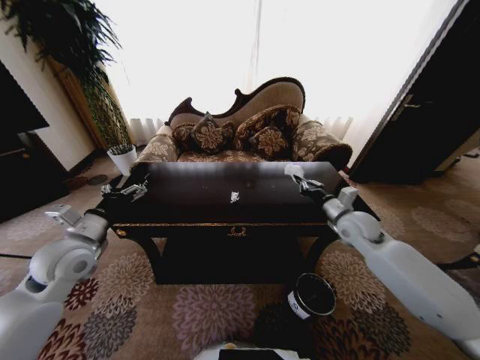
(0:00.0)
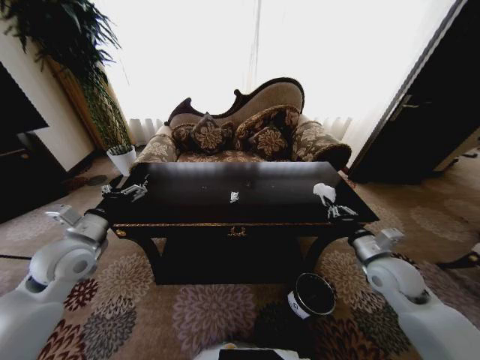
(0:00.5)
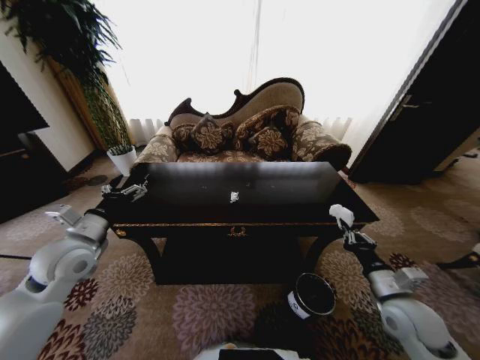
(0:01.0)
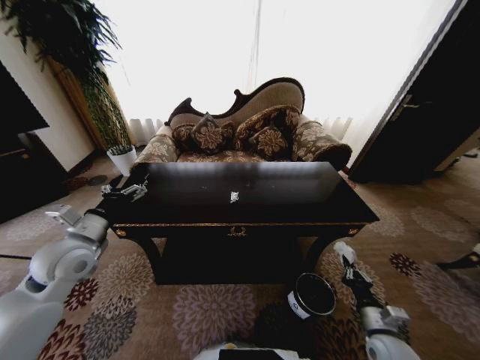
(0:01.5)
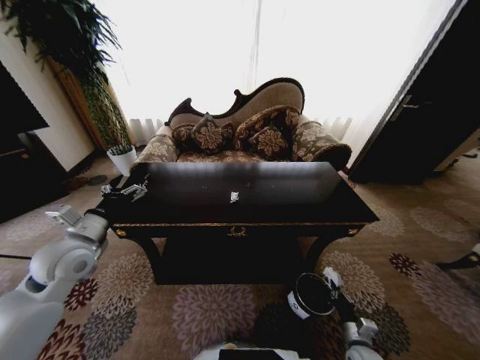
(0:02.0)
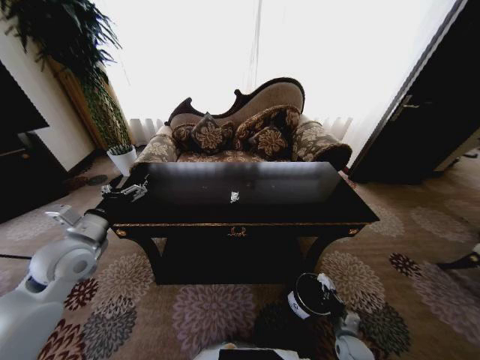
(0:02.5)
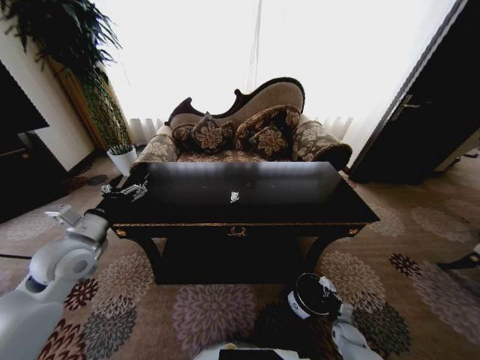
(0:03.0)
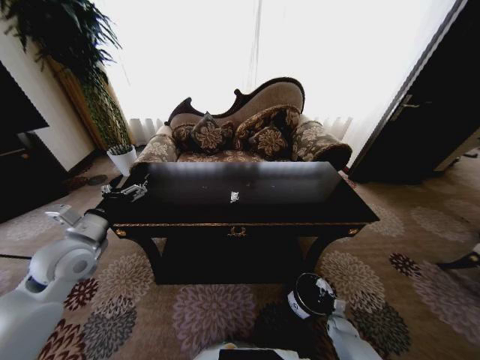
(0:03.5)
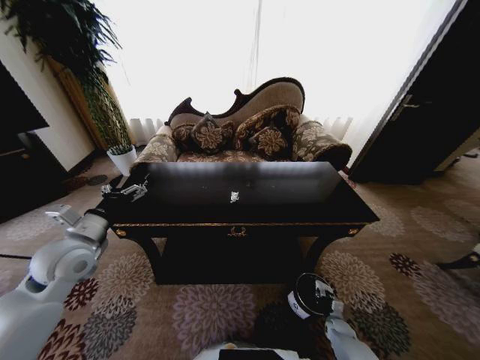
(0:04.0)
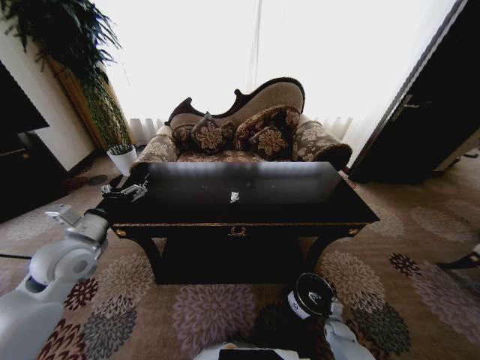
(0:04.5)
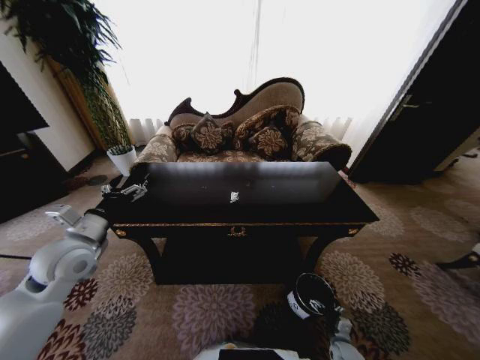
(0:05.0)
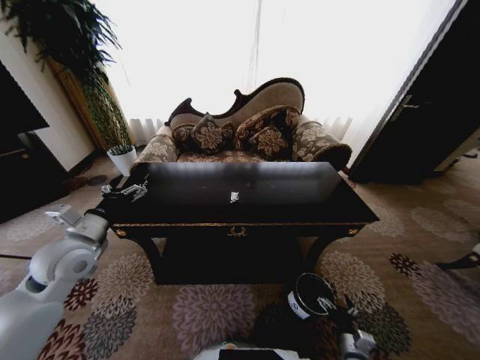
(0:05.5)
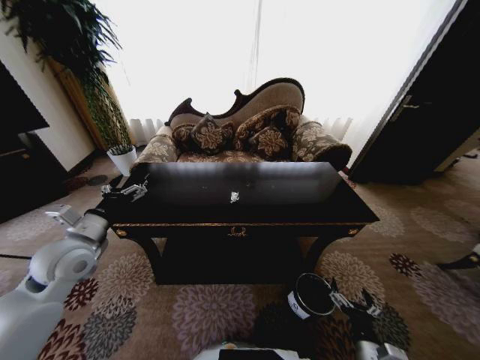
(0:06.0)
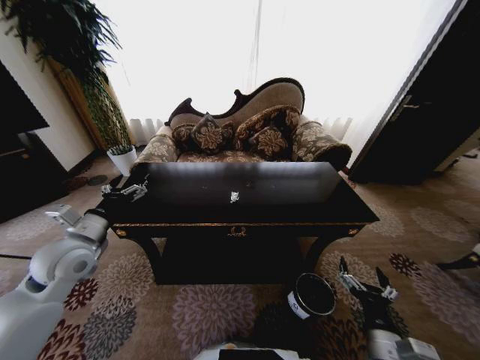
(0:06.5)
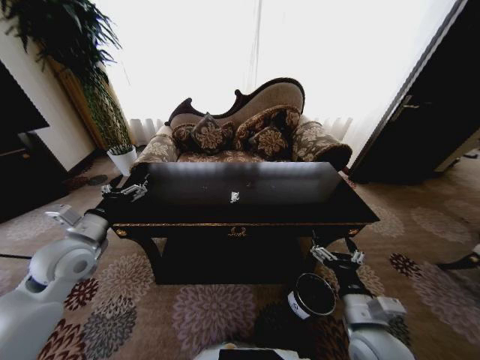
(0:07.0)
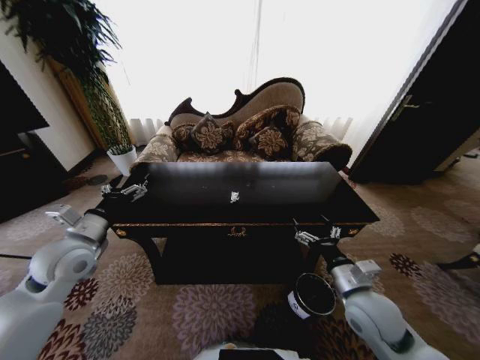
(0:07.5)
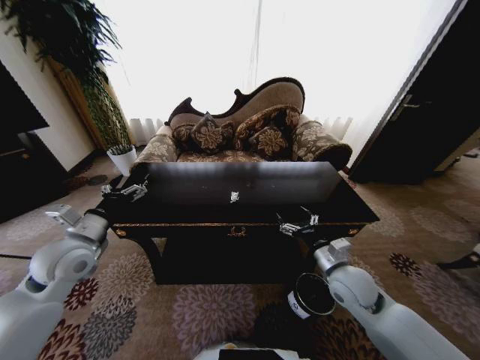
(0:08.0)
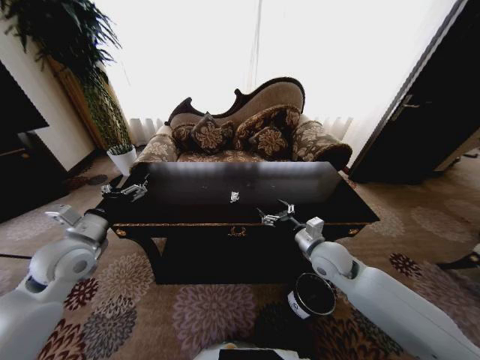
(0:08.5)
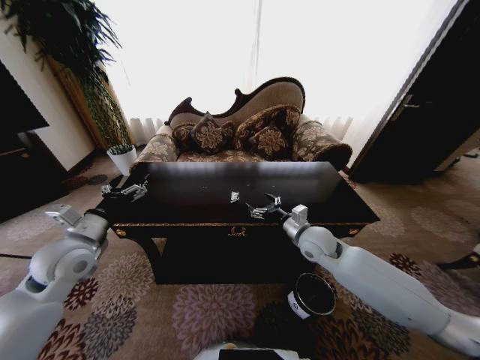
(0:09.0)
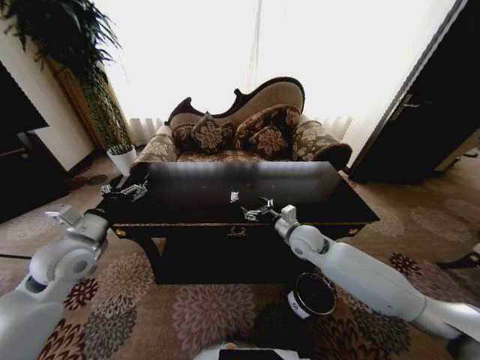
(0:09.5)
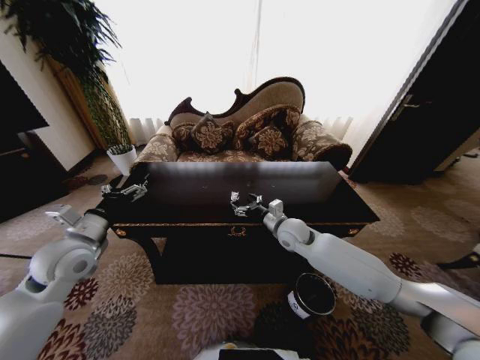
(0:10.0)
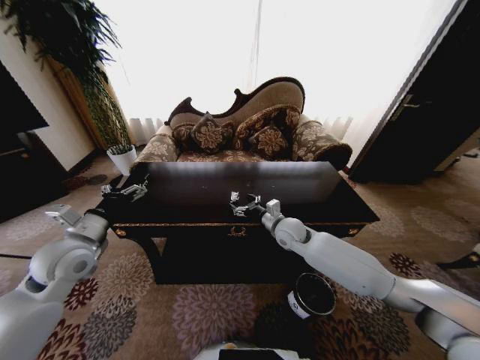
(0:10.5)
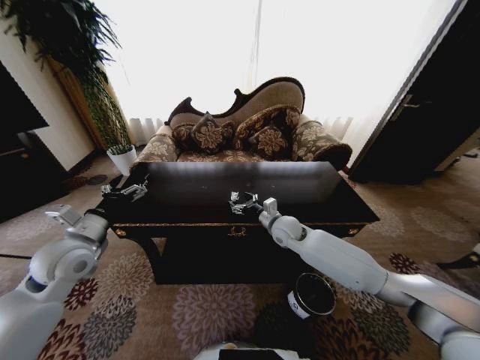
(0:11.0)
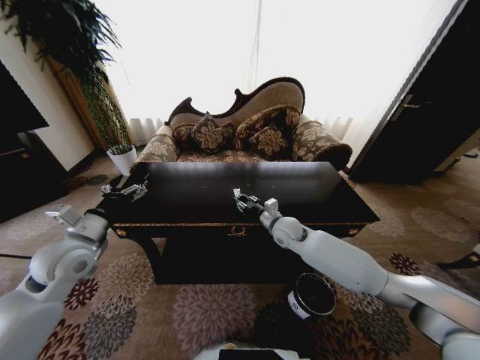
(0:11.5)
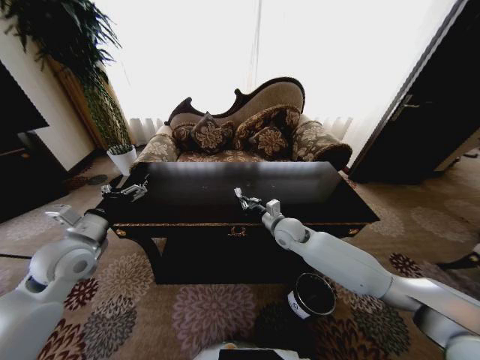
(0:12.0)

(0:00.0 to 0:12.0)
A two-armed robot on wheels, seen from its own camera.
Task of the whole recording: Move to the front of the table and place the trash on the table into the trash bin.
0:00.0 - 0:02.0: The right gripper goes roughly 40 cm downward and backward.
0:02.0 - 0:04.0: The right gripper travels downward and forward by some 20 cm.
0:04.0 - 0:06.0: The right gripper shifts some 30 cm upward, backward and to the left, and opens its fingers.
0:06.0 - 0:08.0: The right gripper goes about 25 cm forward and upward.
0:08.0 - 0:10.0: The right gripper is displaced forward and to the left by roughly 20 cm.
0:10.0 - 0:12.0: The right gripper closes up.

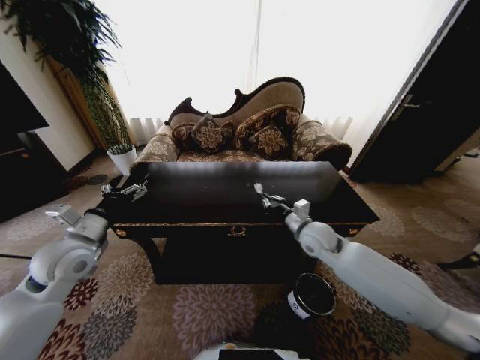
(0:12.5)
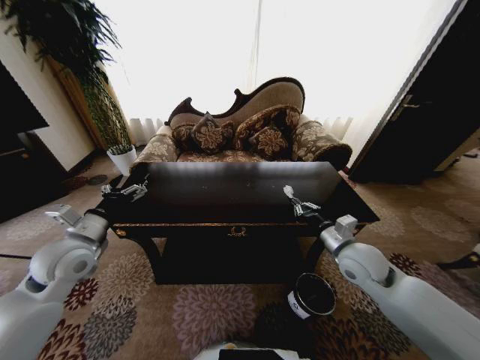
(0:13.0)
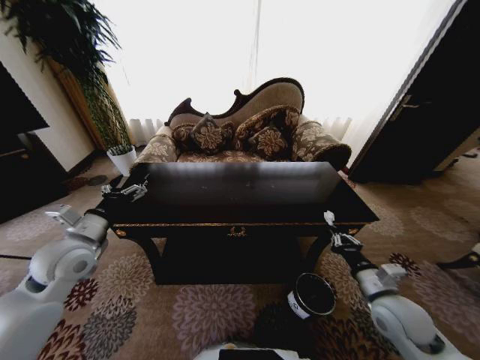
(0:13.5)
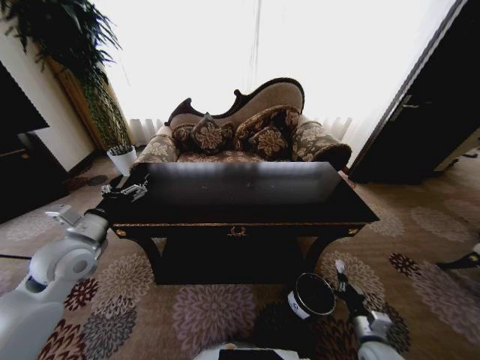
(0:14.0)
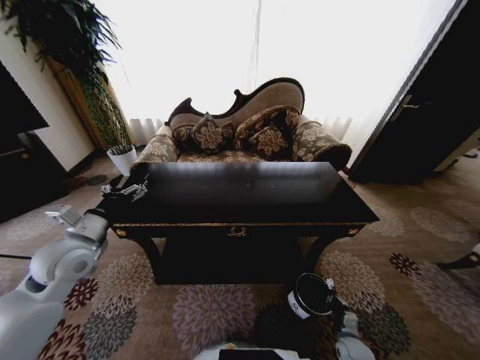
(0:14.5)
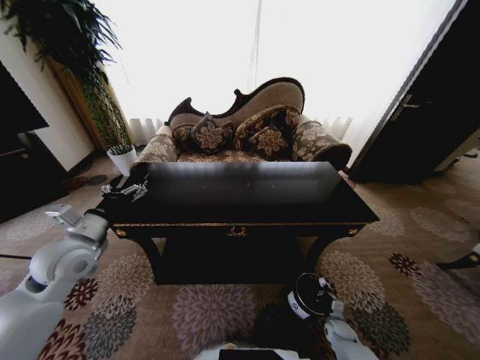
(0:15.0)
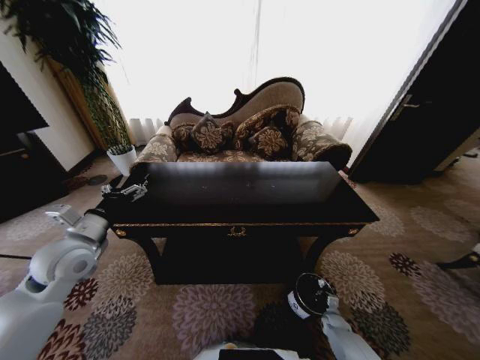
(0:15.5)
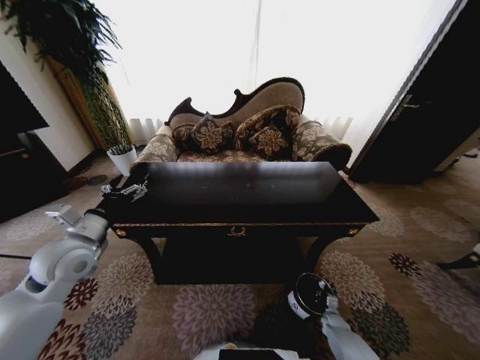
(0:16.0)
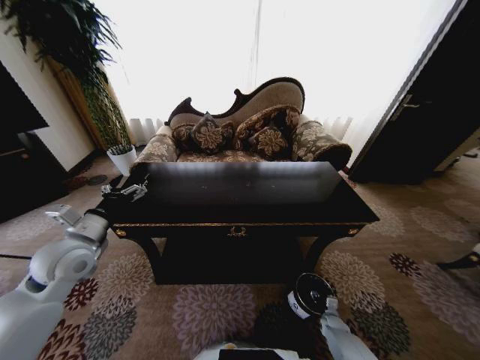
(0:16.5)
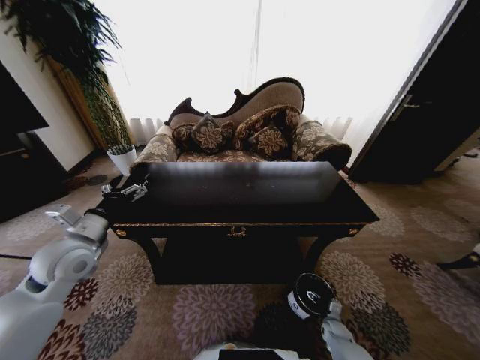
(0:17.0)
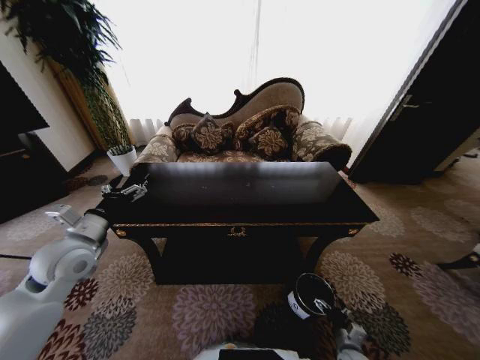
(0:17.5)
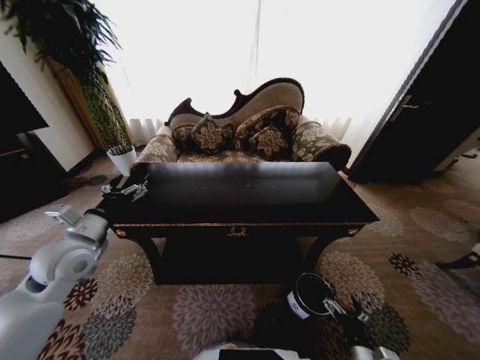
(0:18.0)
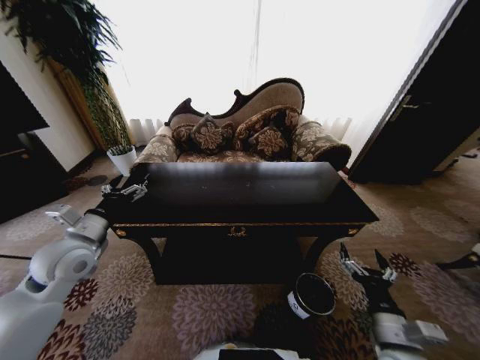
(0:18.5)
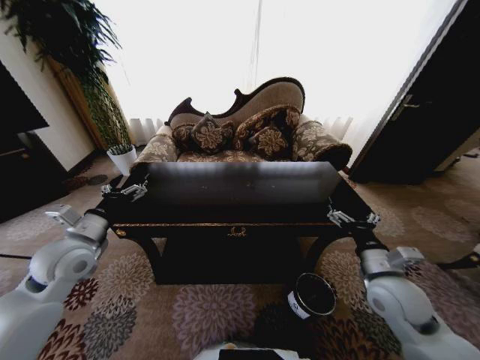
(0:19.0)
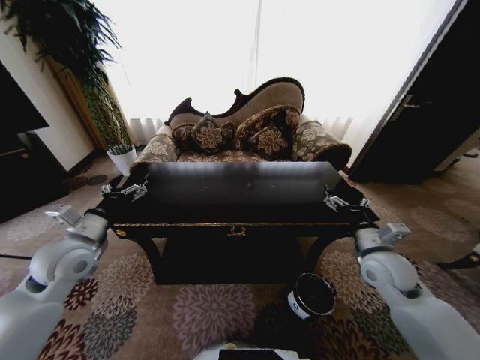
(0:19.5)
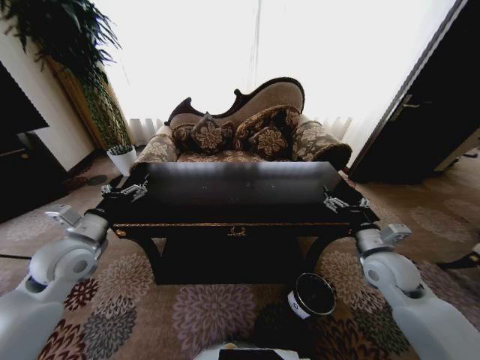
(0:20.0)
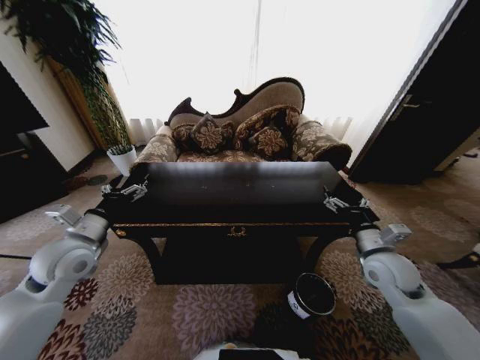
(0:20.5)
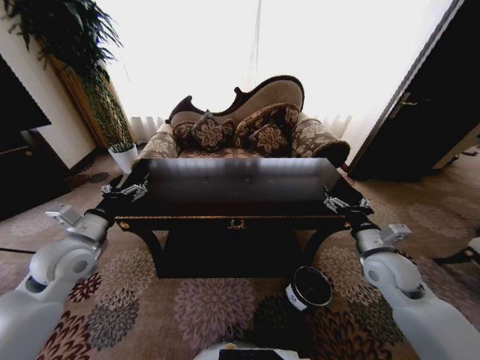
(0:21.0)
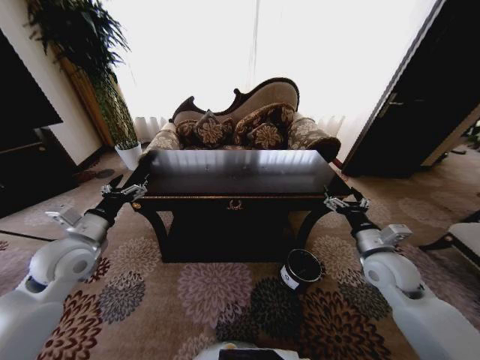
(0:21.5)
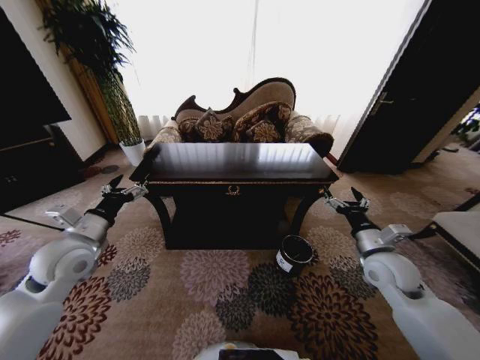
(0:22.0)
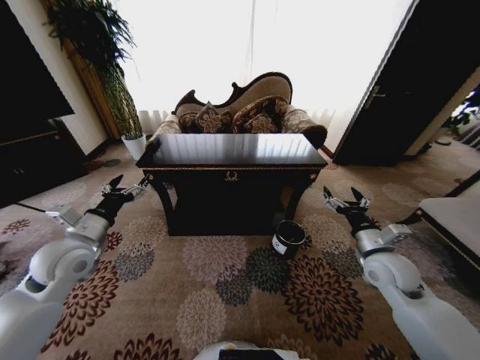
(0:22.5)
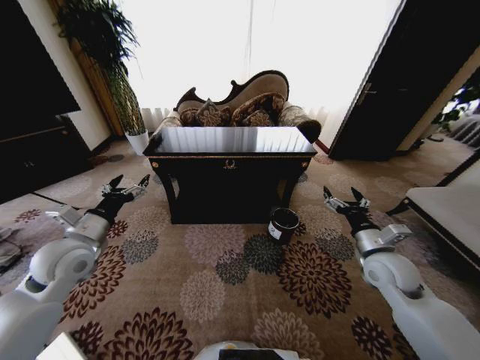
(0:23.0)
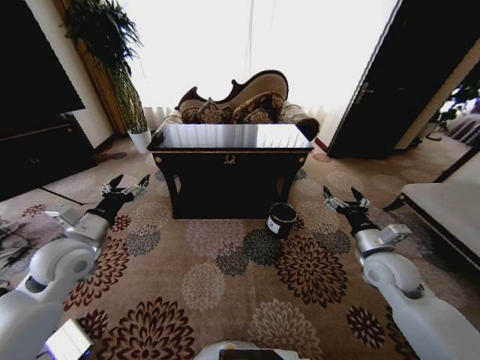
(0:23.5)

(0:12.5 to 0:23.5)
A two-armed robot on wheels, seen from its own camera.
Task of the whole recording: Move to the front of the table and place the trash on the table into the trash bin.
0:12.5 - 0:14.5: The right gripper goes roughly 40 cm downward, backward and to the right.
0:14.5 - 0:16.0: The right gripper shifts some 10 cm forward and downward.
0:16.0 - 0:18.0: The right gripper moves upward, backward and to the left, approximately 30 cm, and opens its fingers.
0:18.0 - 0:20.0: The right gripper travels forward and upward by some 30 cm.

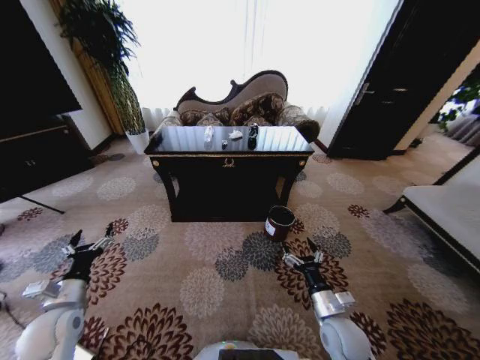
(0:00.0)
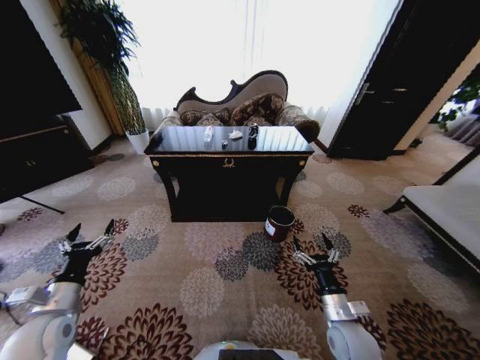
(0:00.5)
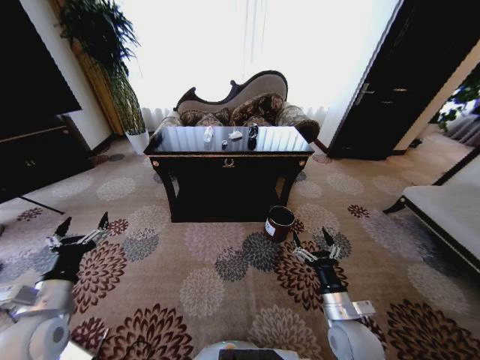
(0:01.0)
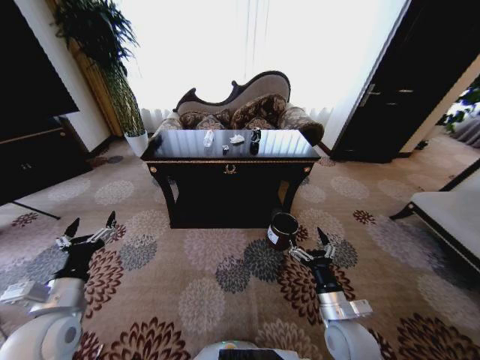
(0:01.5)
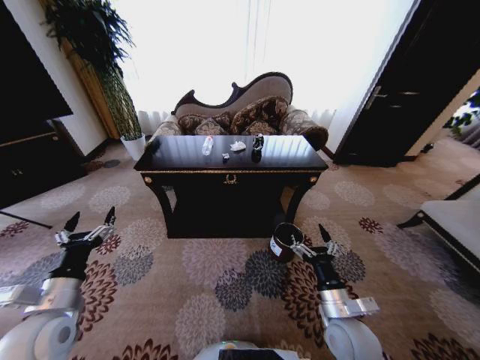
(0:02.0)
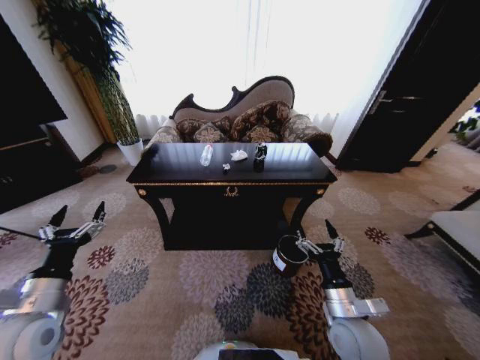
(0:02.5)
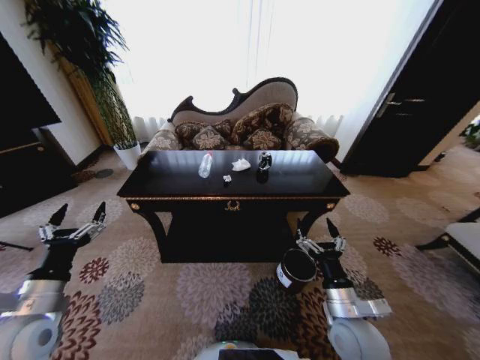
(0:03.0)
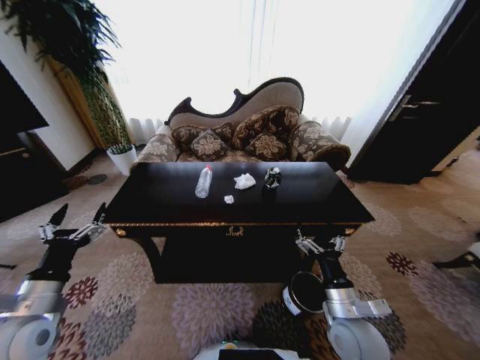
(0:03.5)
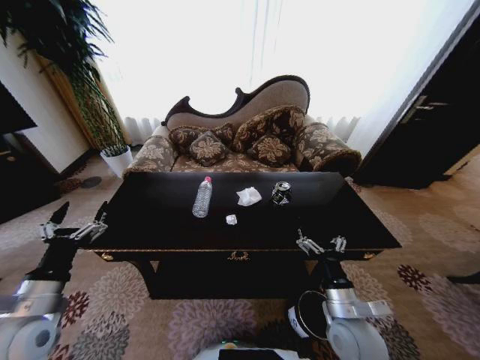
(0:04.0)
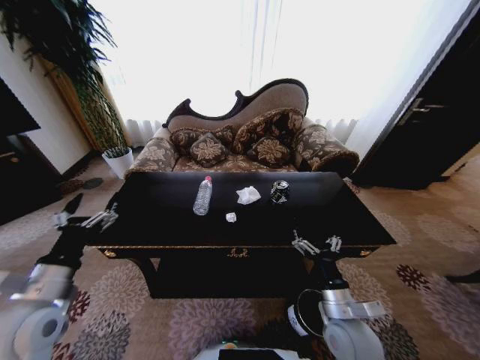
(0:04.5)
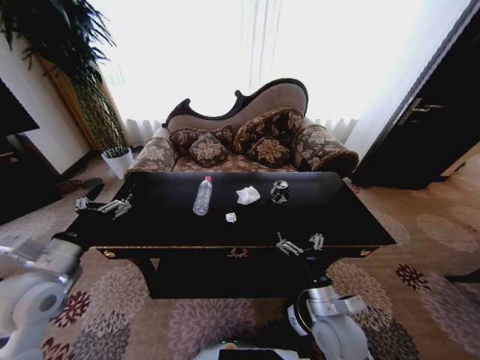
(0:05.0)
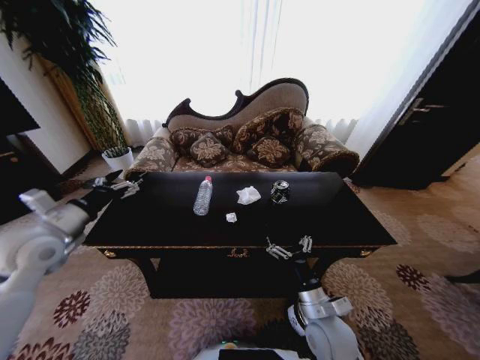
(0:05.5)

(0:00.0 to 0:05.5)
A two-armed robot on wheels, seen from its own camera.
Task of the whole recording: Move to the front of the table and place the trash on the table into the trash bin.
0:03.5 - 0:05.5: The right gripper changes place by roughly 5 cm; the left gripper heads forward and upward, covering roughly 15 cm.
